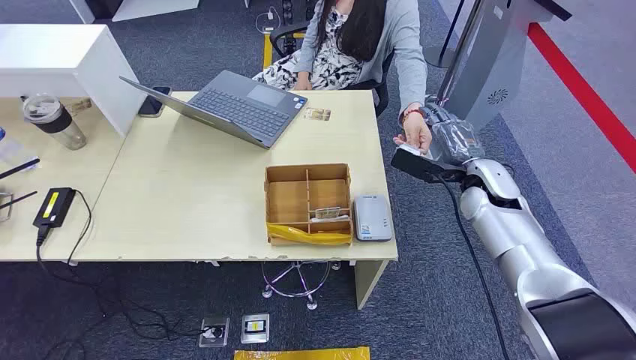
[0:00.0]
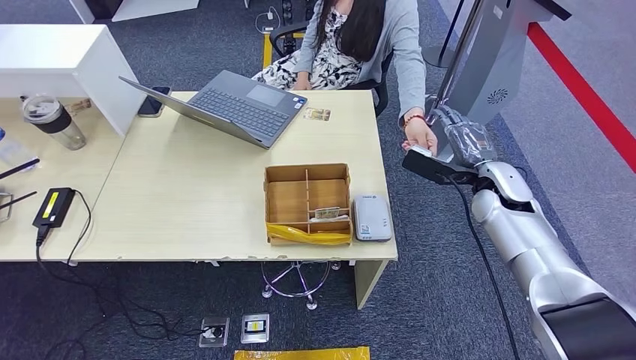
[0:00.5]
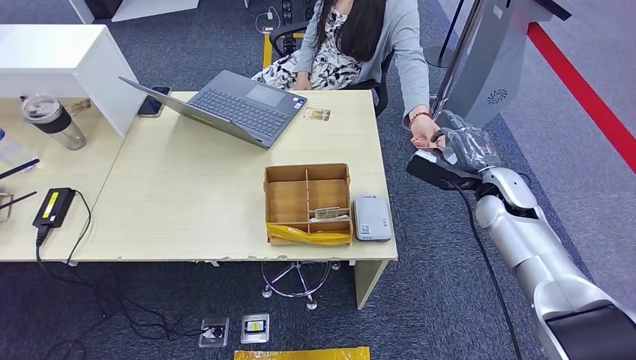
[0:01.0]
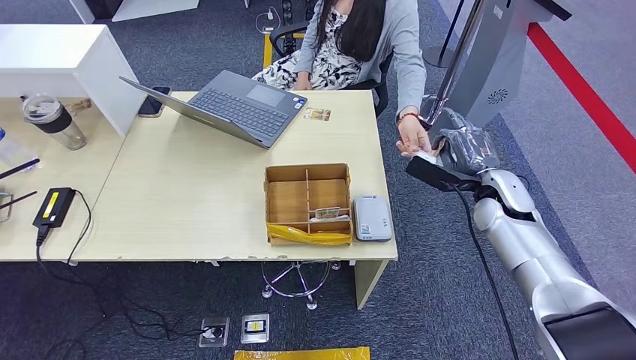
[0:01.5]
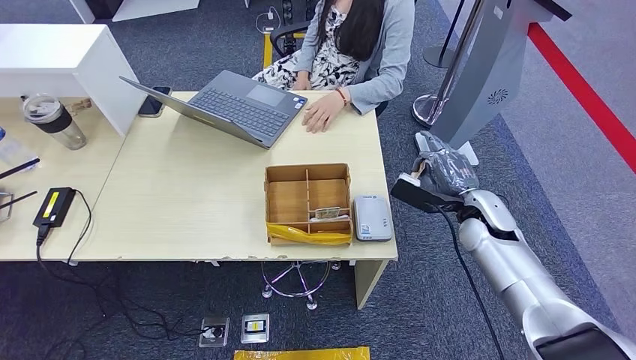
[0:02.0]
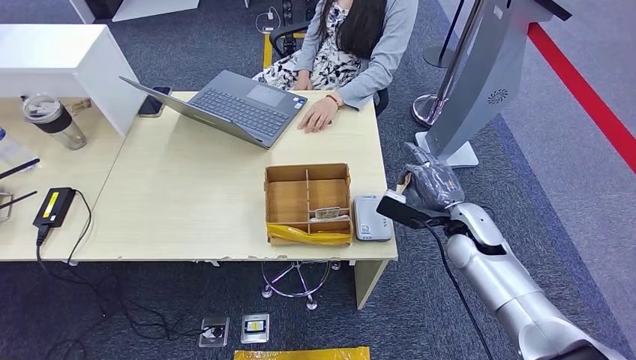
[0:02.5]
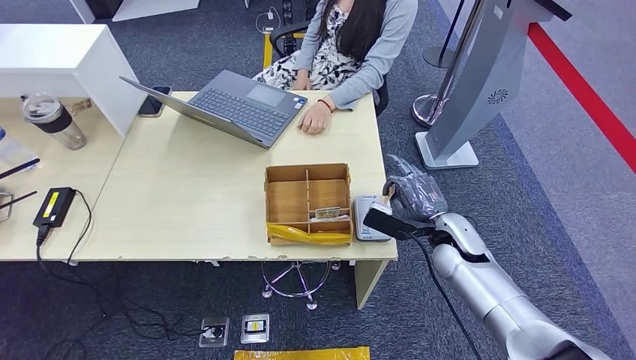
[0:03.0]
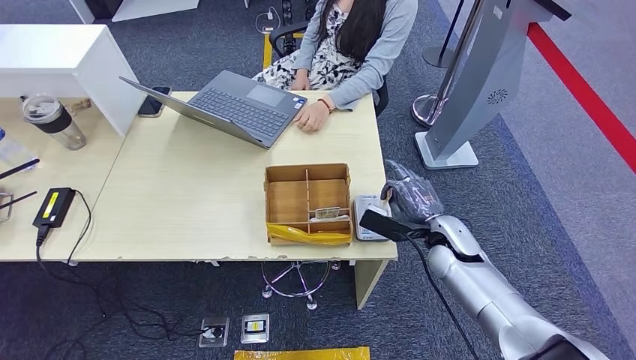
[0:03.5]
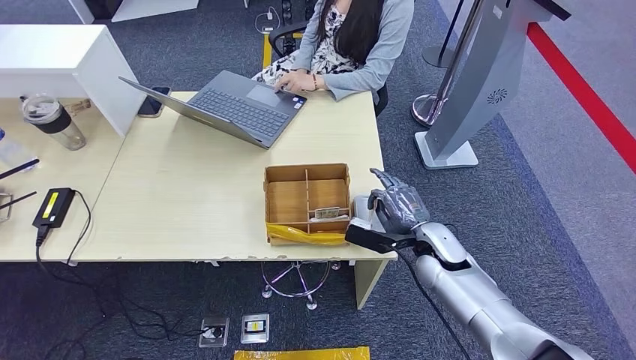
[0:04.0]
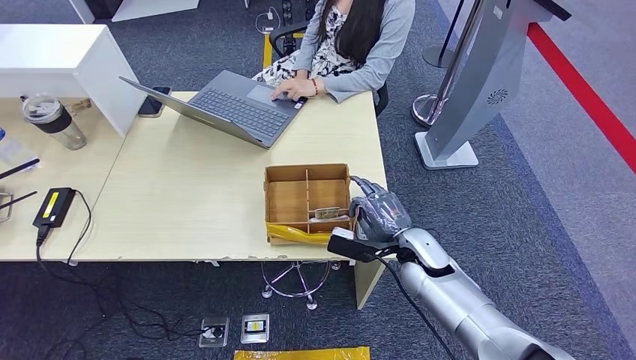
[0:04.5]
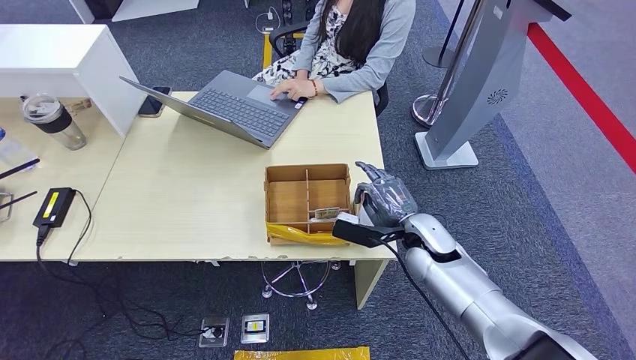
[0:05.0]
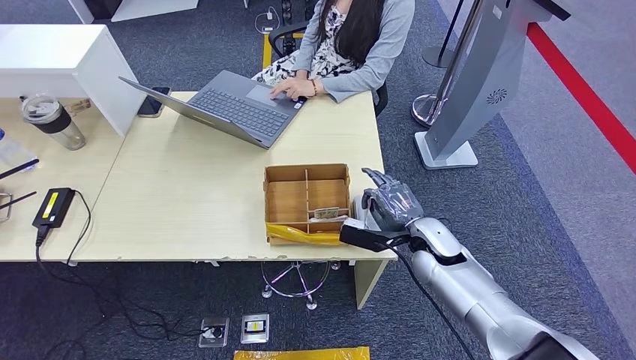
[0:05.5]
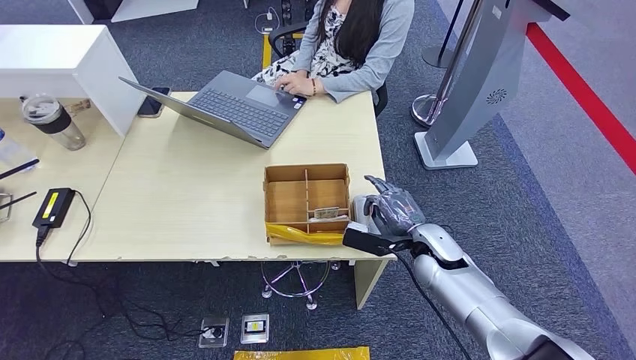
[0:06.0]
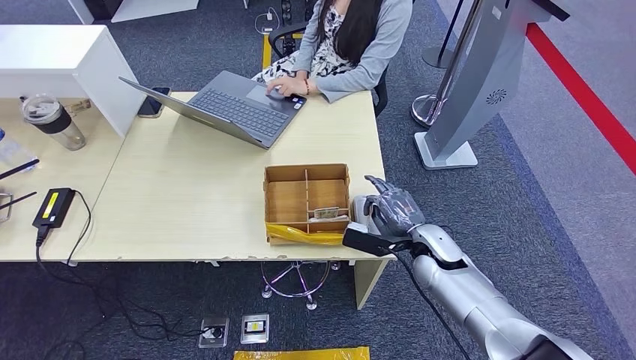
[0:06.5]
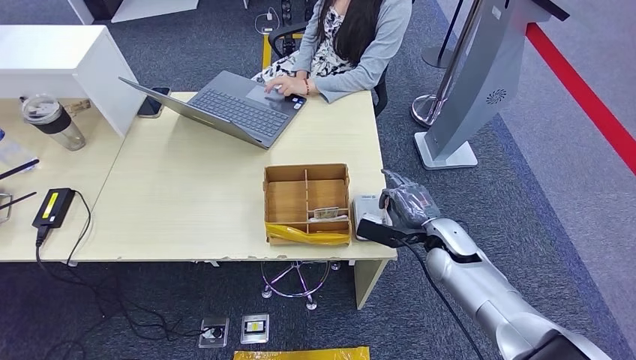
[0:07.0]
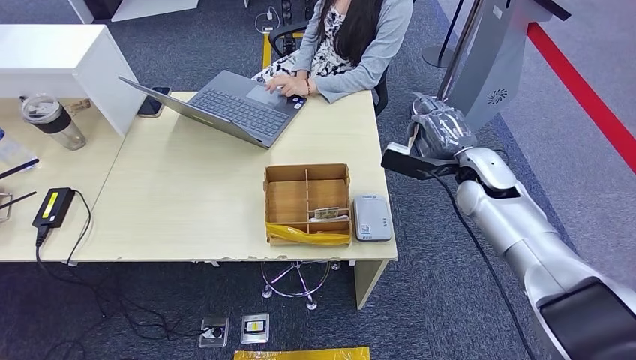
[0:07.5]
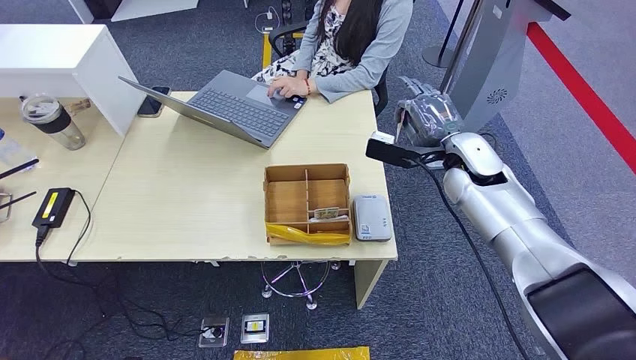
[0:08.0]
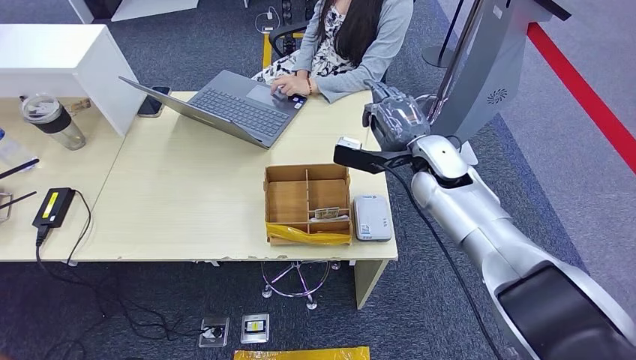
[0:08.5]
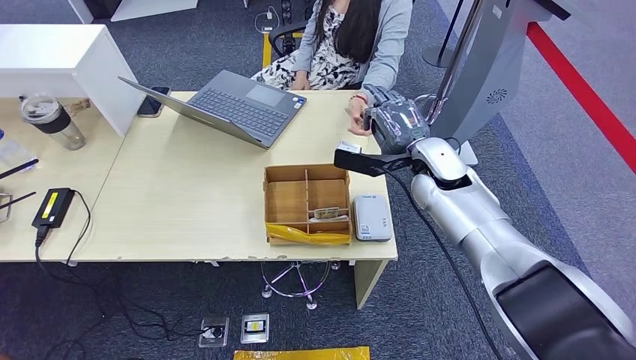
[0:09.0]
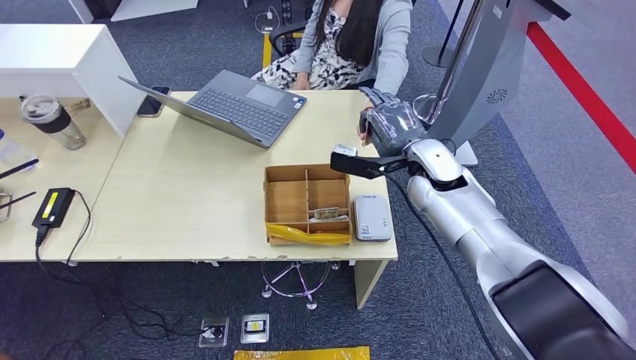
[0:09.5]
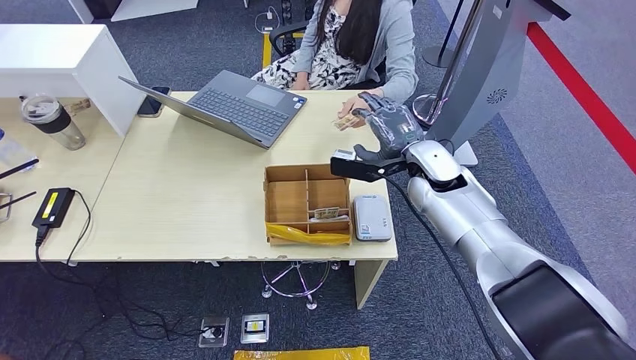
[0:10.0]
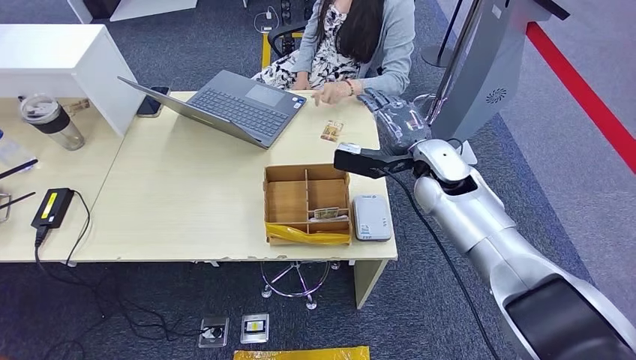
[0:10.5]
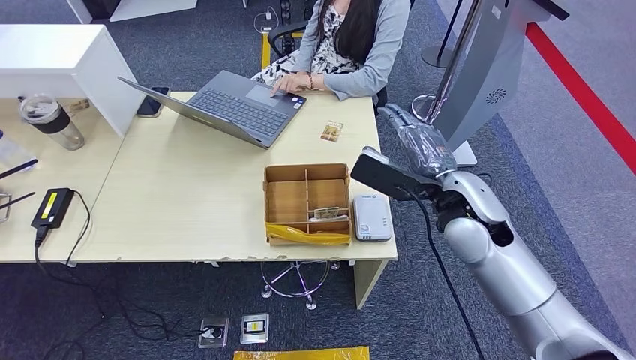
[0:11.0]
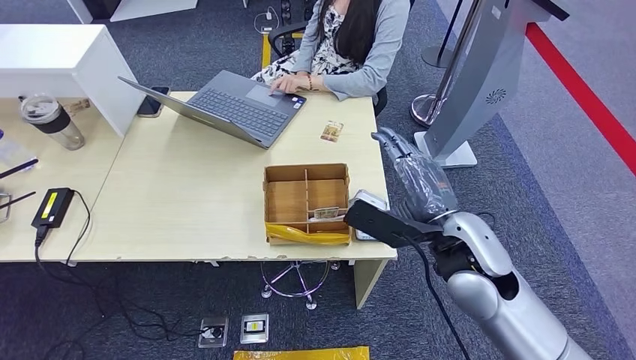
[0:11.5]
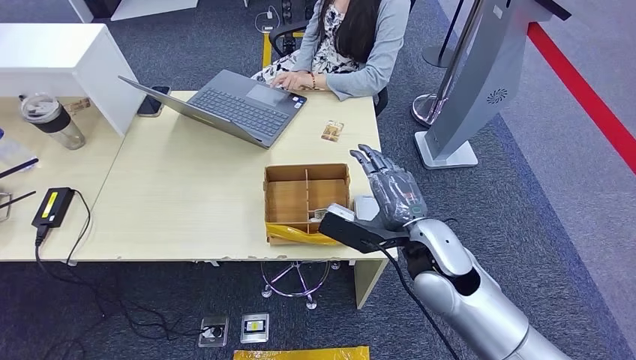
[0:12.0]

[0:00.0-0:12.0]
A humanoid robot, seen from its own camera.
Step, 0:00.0 to 0:02.0: Take the ID card from the person's hand.
Step, 0:03.5 to 0:06.5: Place the ID card on the card reader.
Step, 0:07.5 to 0:10.5: Hand the ID card to the person.
0:02.0 to 0:04.0: The right hand shifts approximately 10 cm to the left and downward.
0:04.0 to 0:06.0: There are only small adjustments of the hands.
0:06.0 to 0:08.0: The right hand travels upward and forward by some 20 cm.
0:08.0 to 0:10.0: The right hand is displaced to the left by roughly 5 cm.
0:10.0 to 0:12.0: The right hand moves backward, approximately 15 cm.

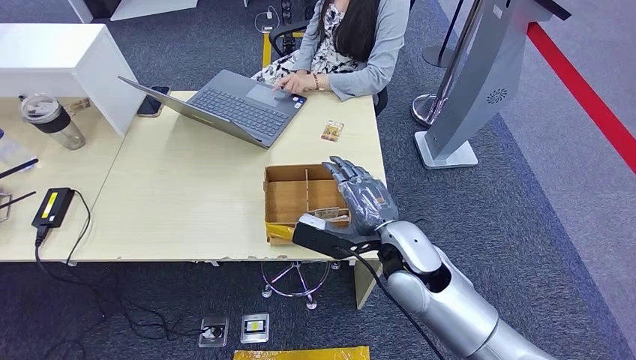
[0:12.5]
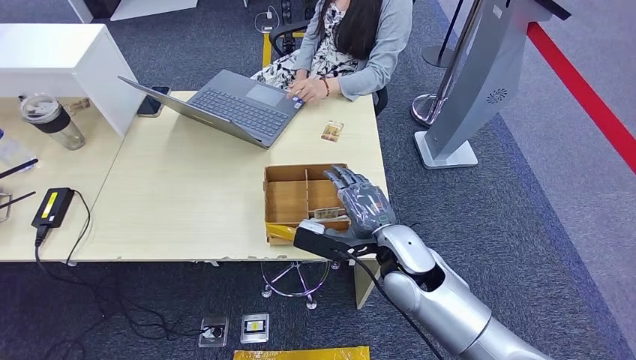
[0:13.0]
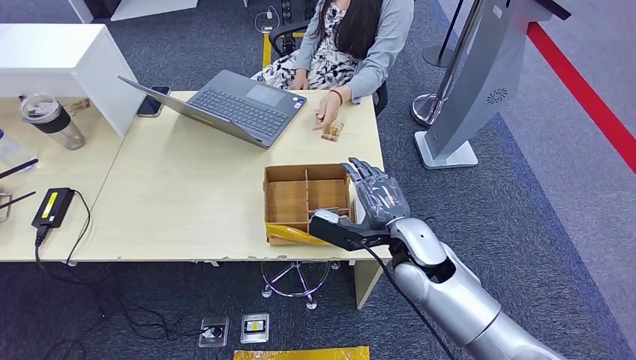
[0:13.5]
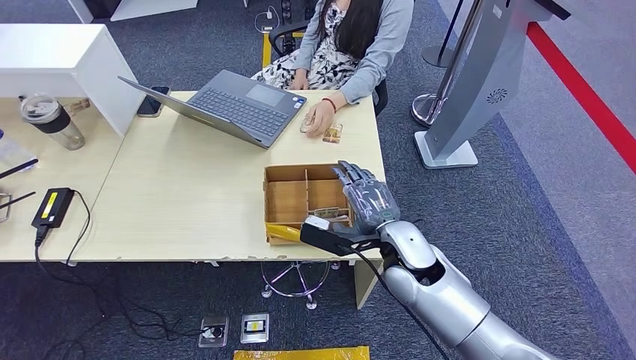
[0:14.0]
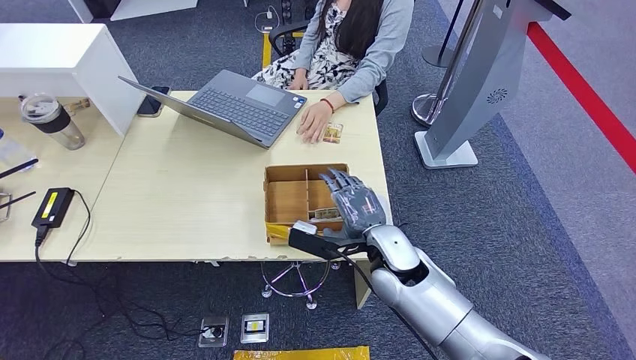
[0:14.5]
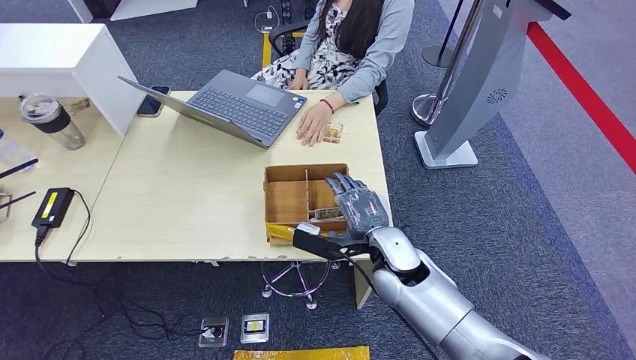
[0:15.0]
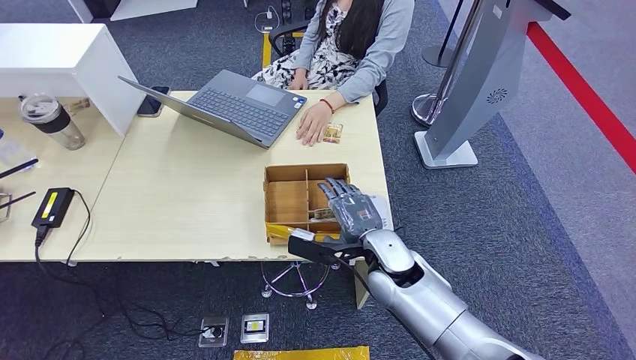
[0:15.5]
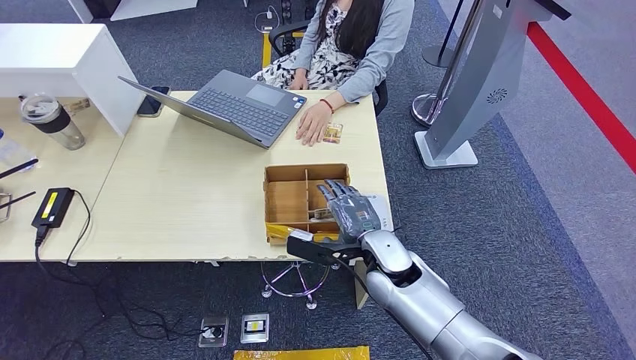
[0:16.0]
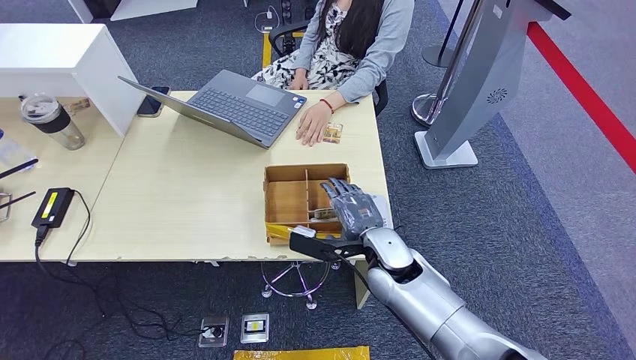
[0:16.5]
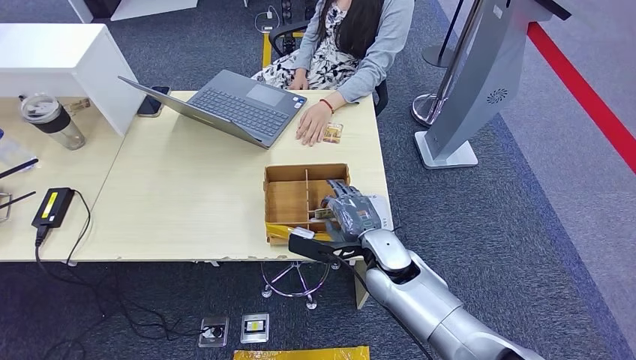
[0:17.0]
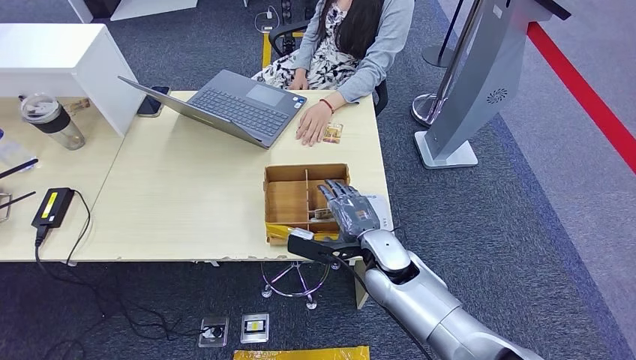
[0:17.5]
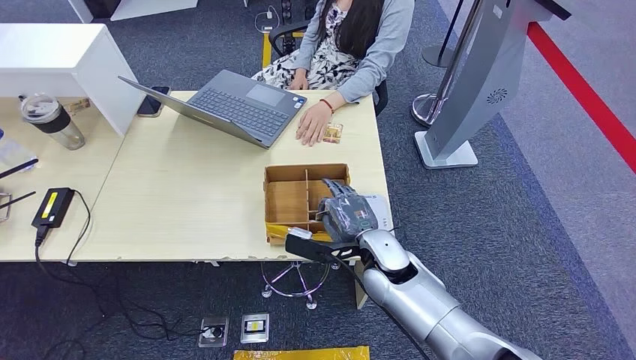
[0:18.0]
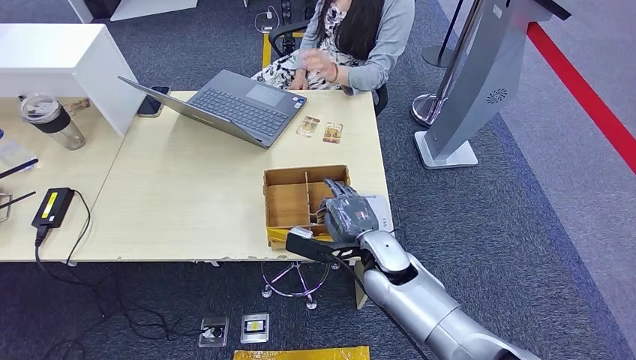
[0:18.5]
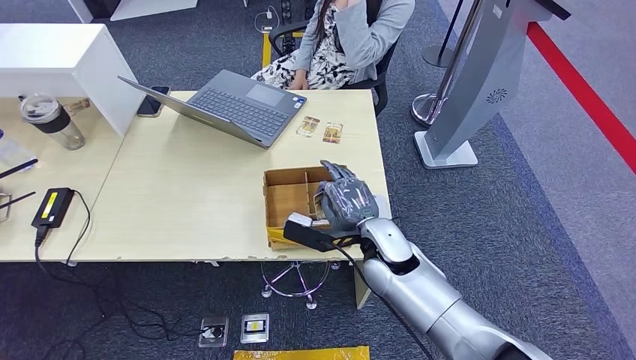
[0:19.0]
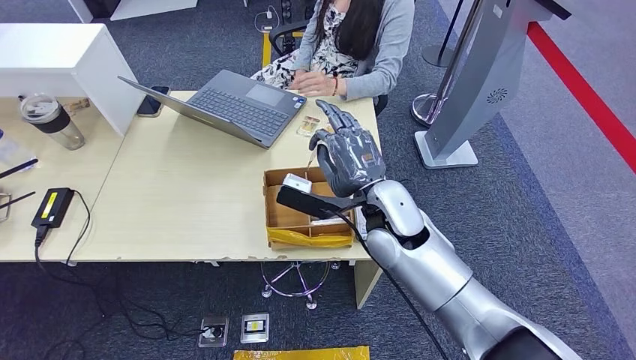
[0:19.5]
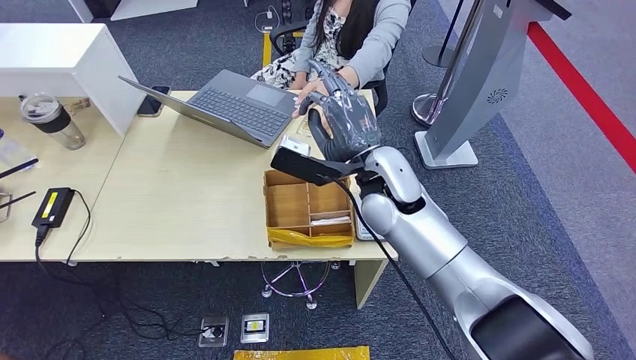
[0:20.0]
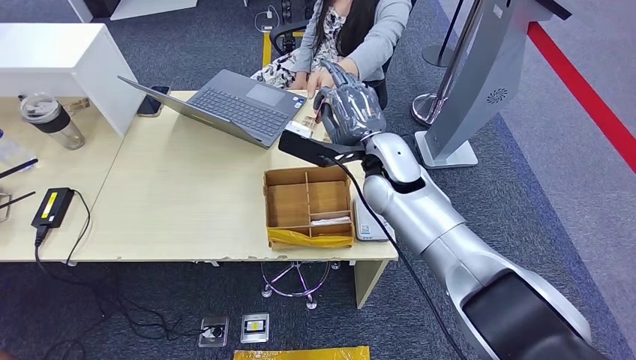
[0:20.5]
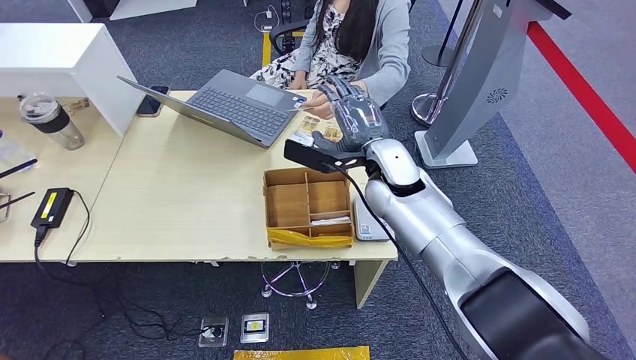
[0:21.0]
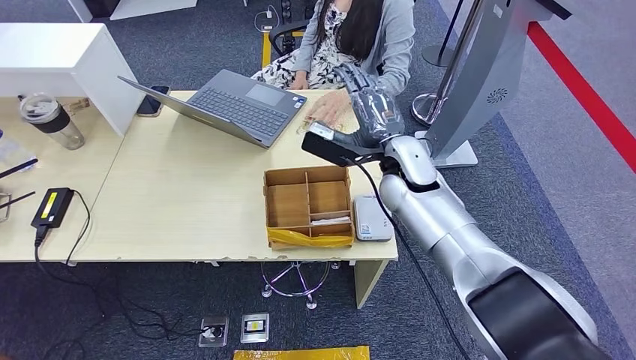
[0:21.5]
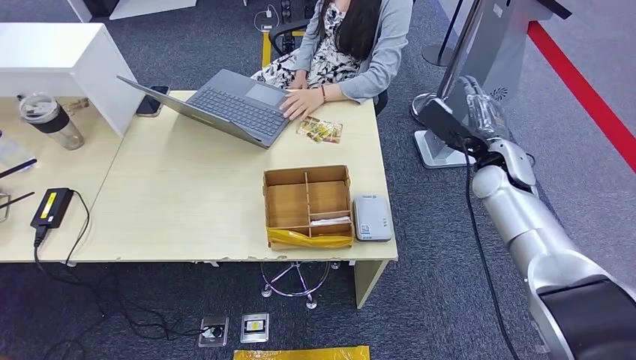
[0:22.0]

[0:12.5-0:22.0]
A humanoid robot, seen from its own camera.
Step, 0:12.5 to 0:19.5: Pick up the room key from the key card box.
Step, 0:20.5 to 0:22.0: Hand the room key to the person.
0:12.5 to 0:14.5: The right hand moves approximately 5 cm.
0:14.5 to 0:16.5: The hands stay close to where they were, moving slightly.
0:16.5 to 0:18.0: The two hands keep their place.
0:18.0 to 0:20.0: The right hand shifts some 15 cm upward and forward.
